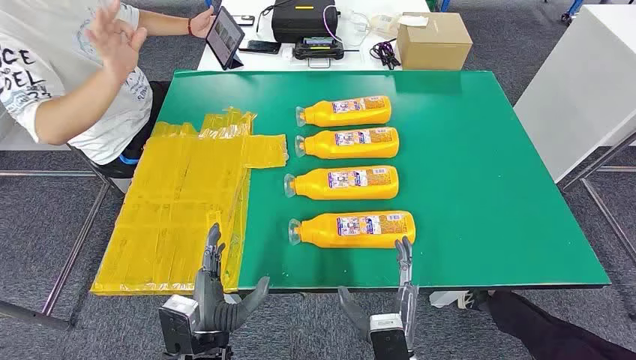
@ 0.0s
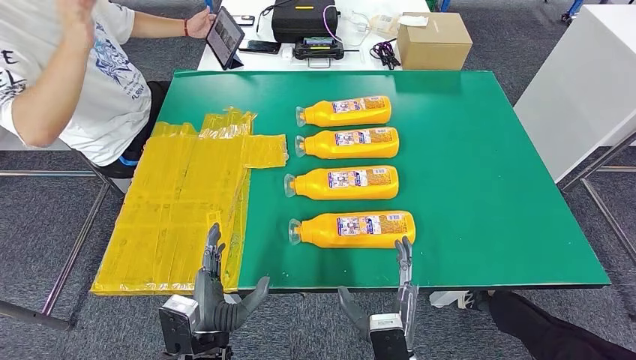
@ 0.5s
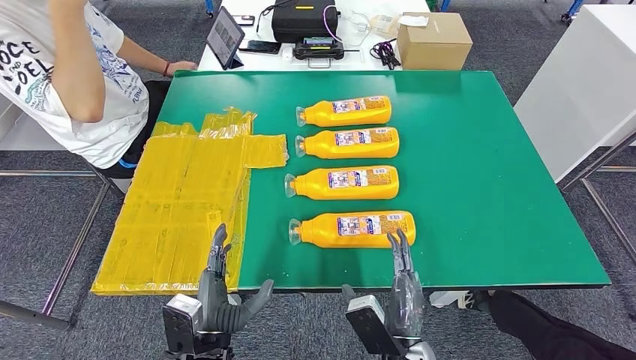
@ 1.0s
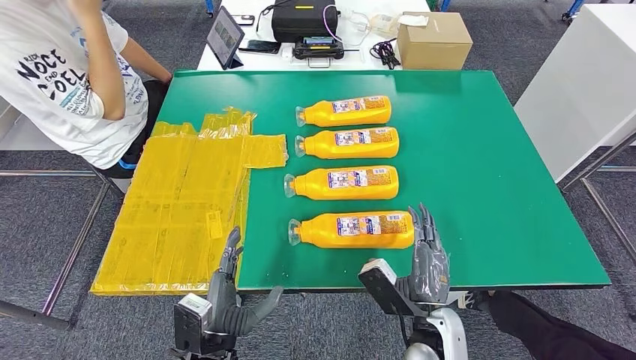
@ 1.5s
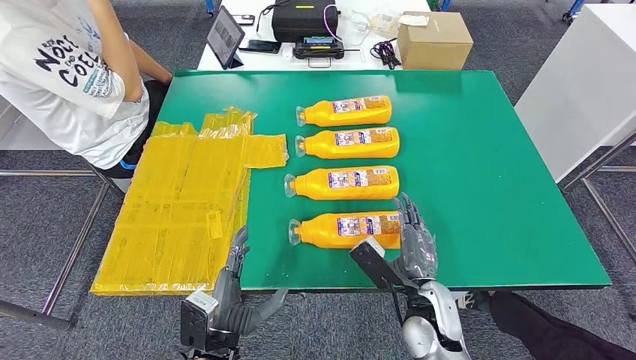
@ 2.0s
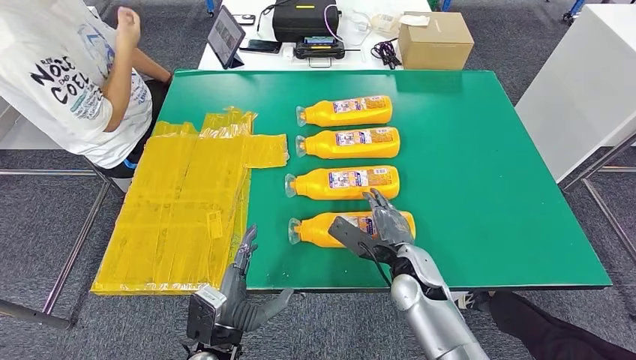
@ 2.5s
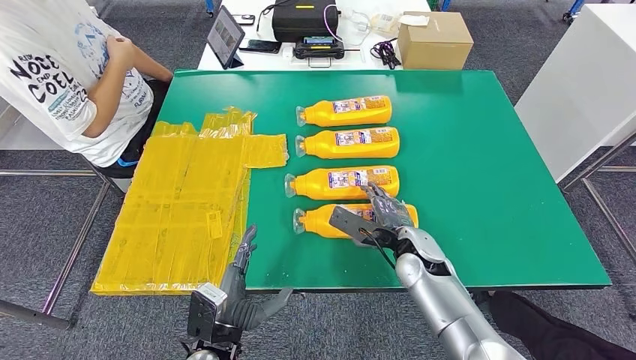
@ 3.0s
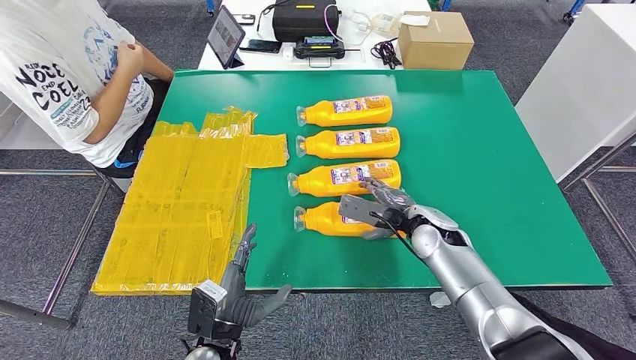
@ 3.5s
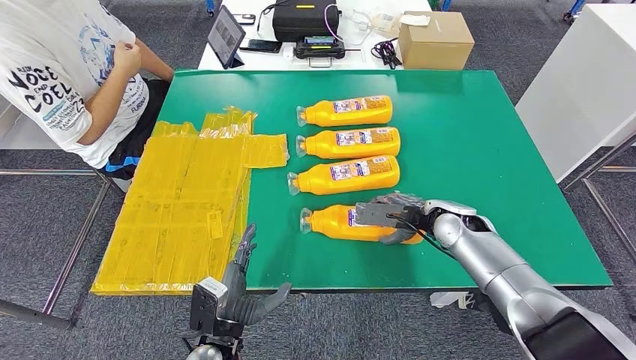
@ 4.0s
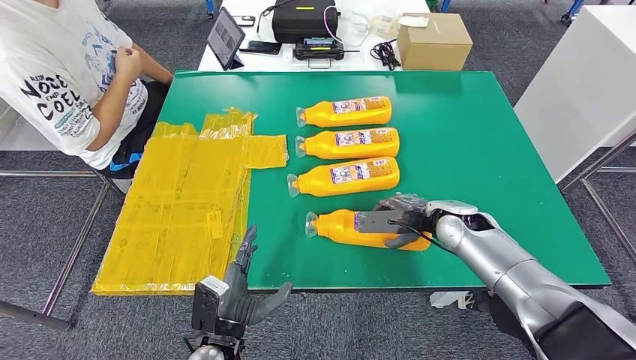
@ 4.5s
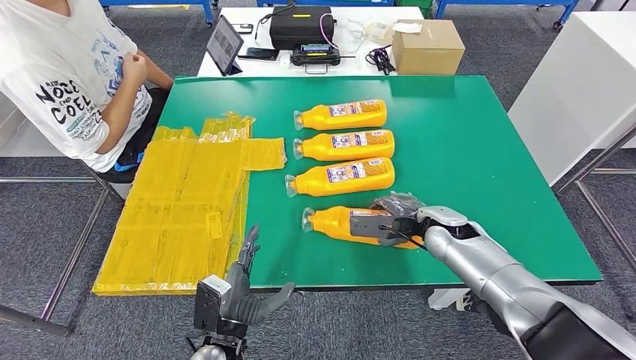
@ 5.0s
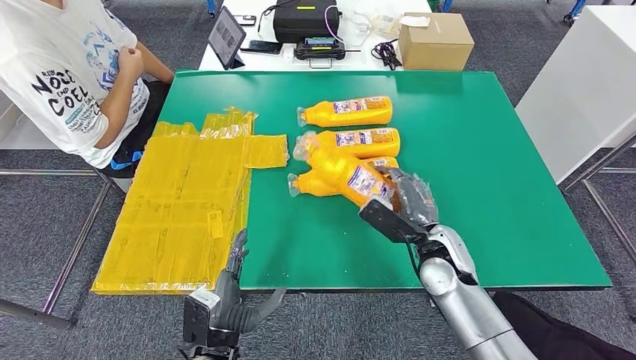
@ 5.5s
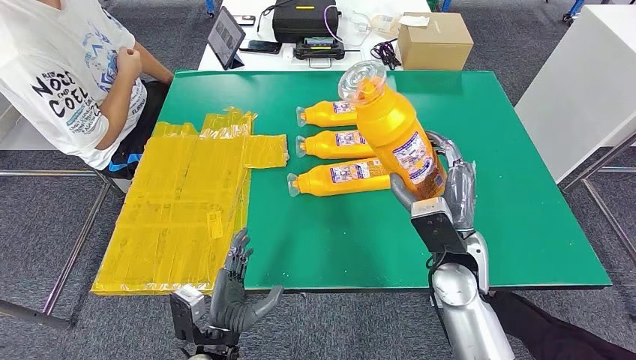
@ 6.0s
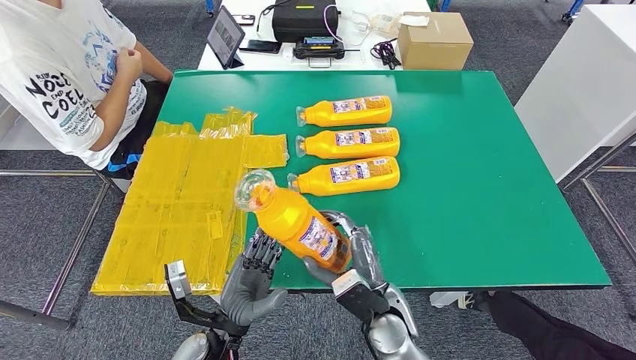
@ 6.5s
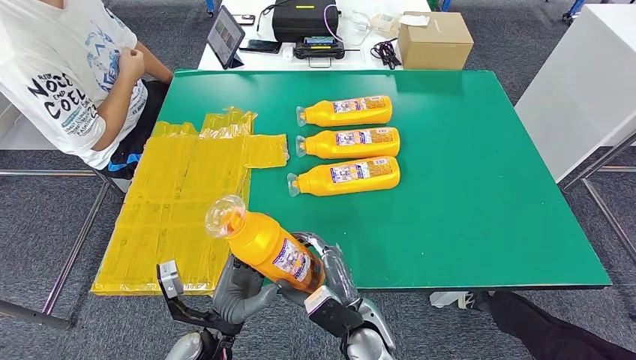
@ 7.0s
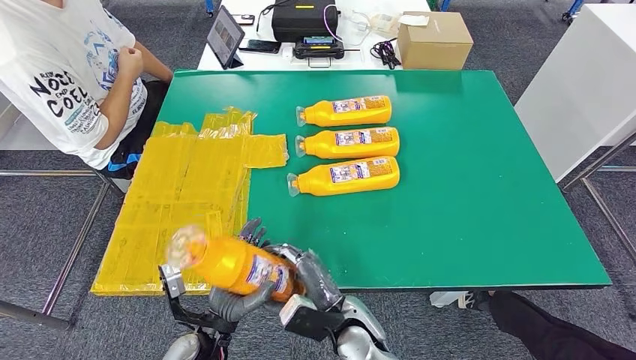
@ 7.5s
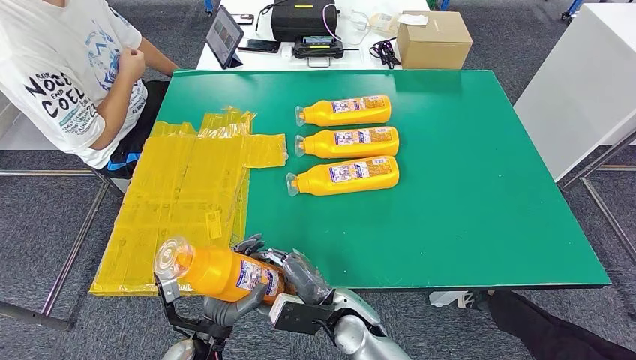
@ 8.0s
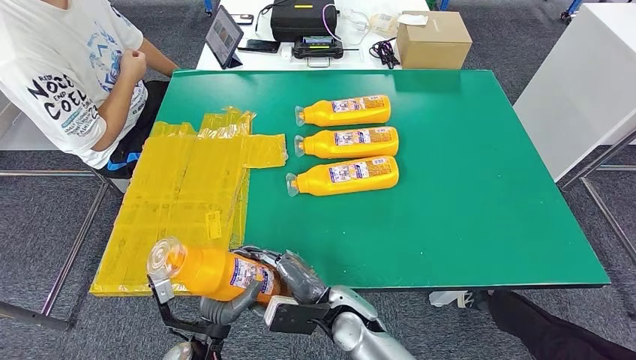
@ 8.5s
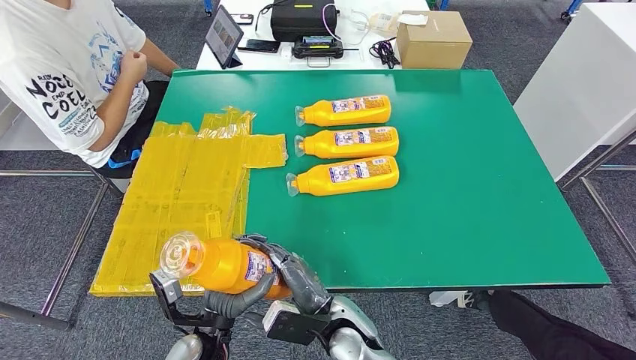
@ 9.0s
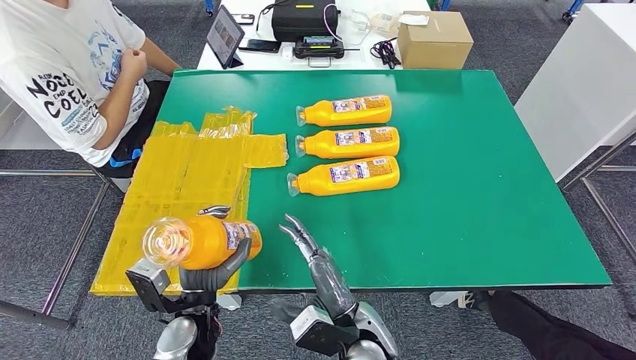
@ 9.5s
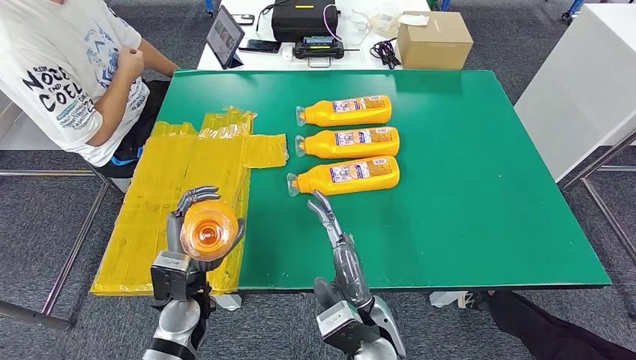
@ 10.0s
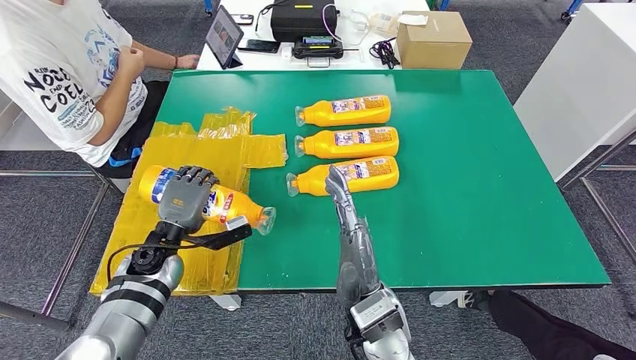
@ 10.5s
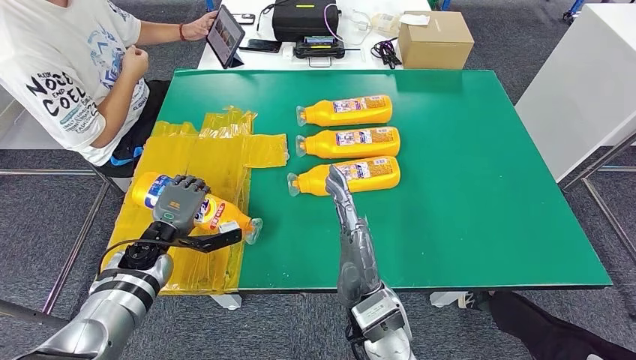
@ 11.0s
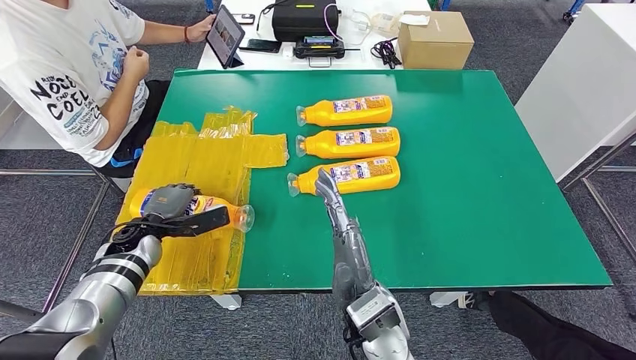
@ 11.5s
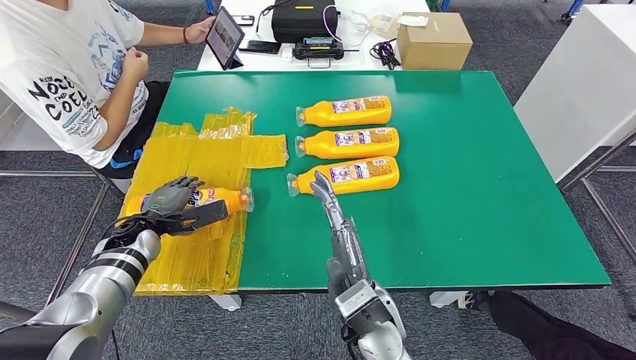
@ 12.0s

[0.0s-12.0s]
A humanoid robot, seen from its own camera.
Step, 0.0s to 4.5s: Take the fast-moving consumer goods bottle from the table.
2.0s to 4.0s: The right hand moves forward and to the right, some 15 cm.
4.0s to 6.0s: The right hand moves backward, about 10 cm.
6.0s to 8.0s: The right hand travels to the left, downward and backward by roughly 20 cm.
8.0s to 10.0s: The left hand goes roughly 10 cm upward and forward. The right hand moves upward, approximately 10 cm.
10.0s to 12.0s: The left hand moves forward and to the left, roughly 20 cm.

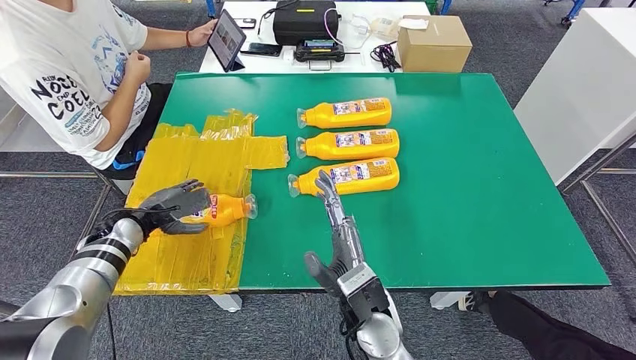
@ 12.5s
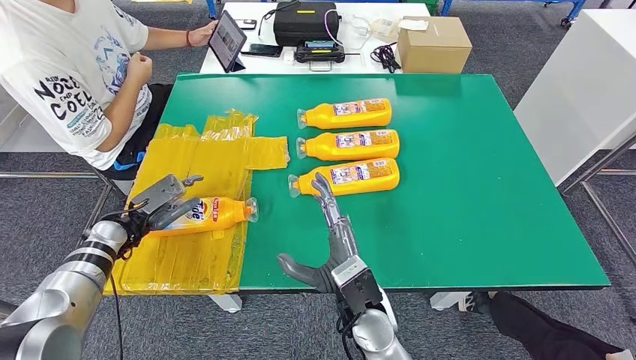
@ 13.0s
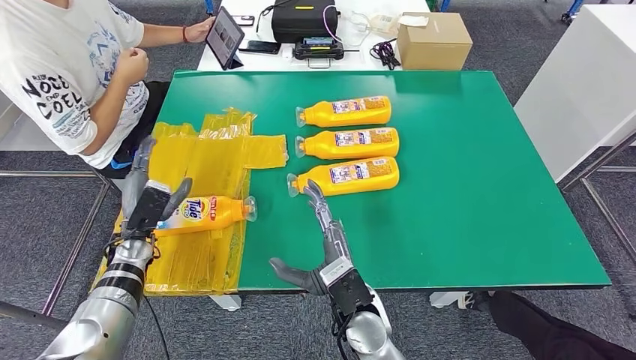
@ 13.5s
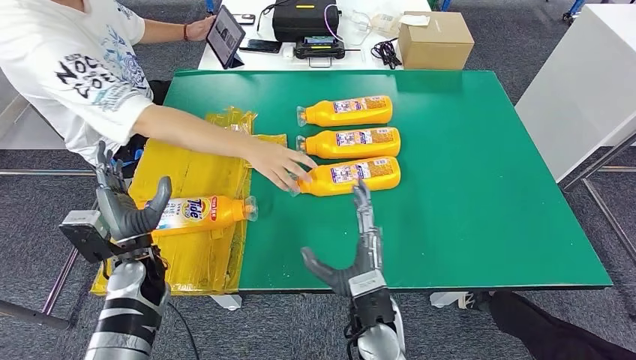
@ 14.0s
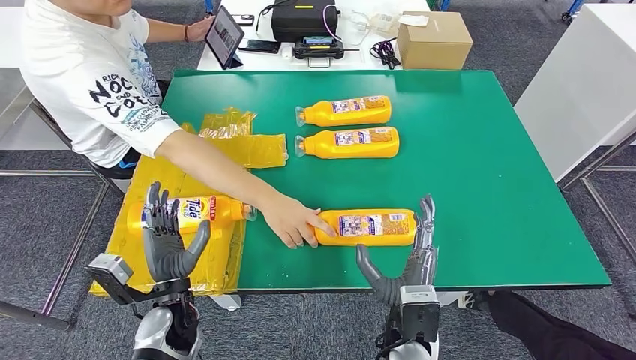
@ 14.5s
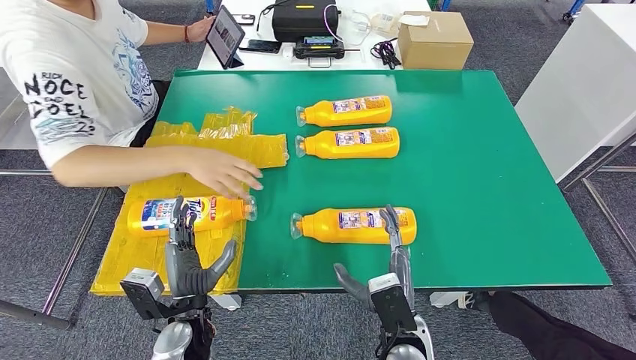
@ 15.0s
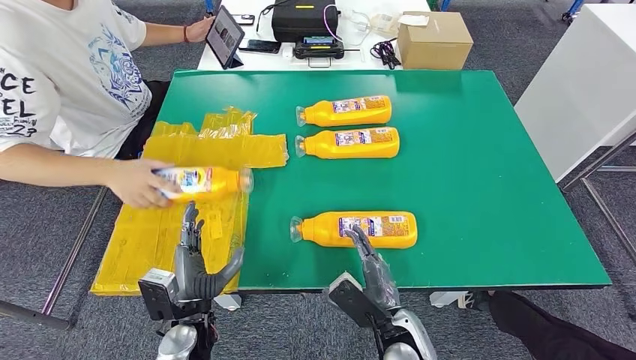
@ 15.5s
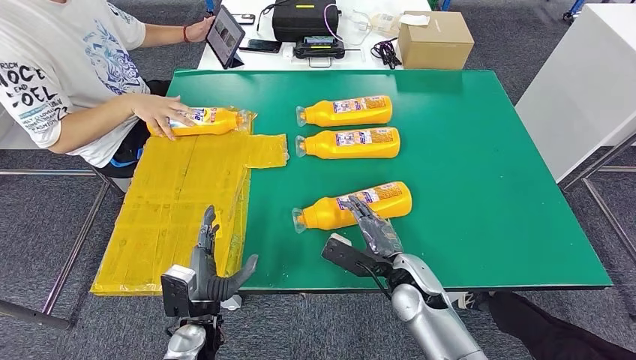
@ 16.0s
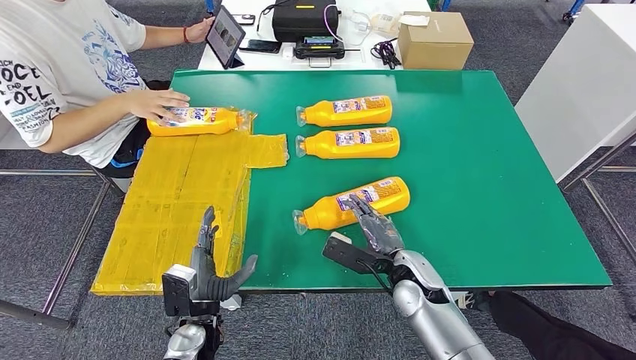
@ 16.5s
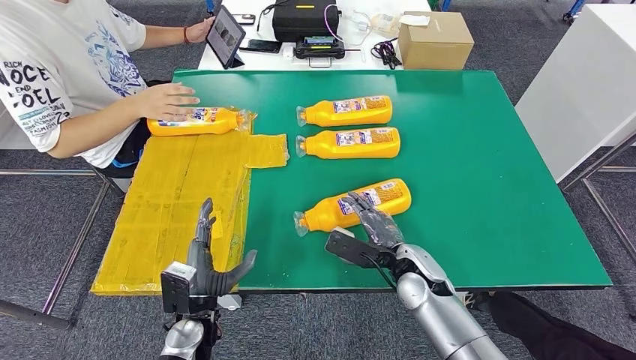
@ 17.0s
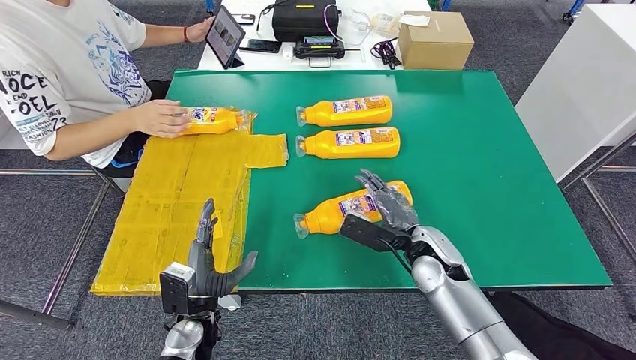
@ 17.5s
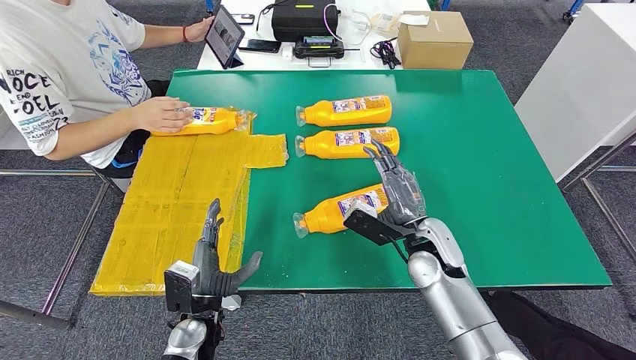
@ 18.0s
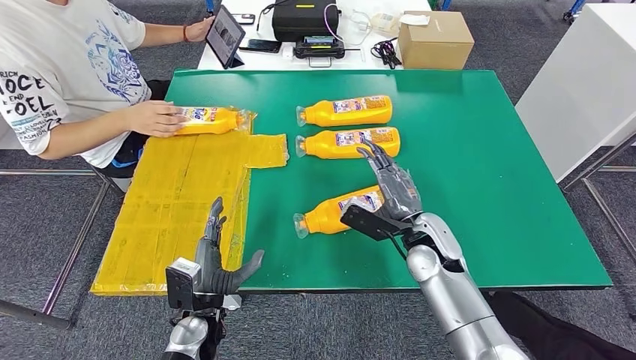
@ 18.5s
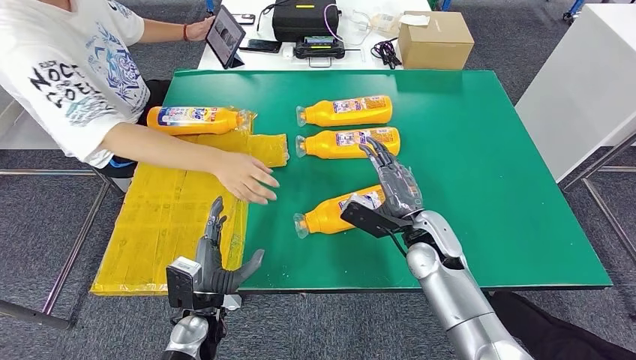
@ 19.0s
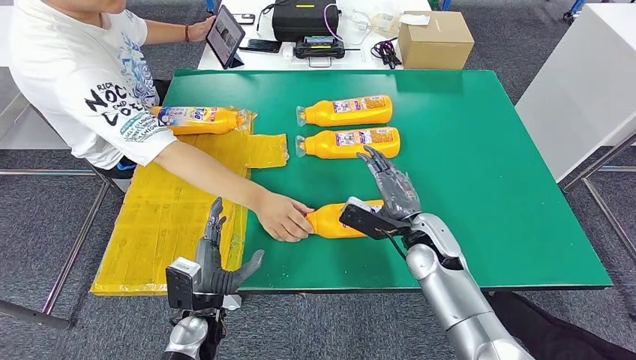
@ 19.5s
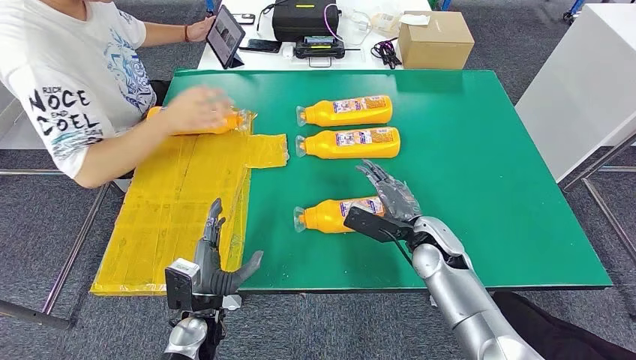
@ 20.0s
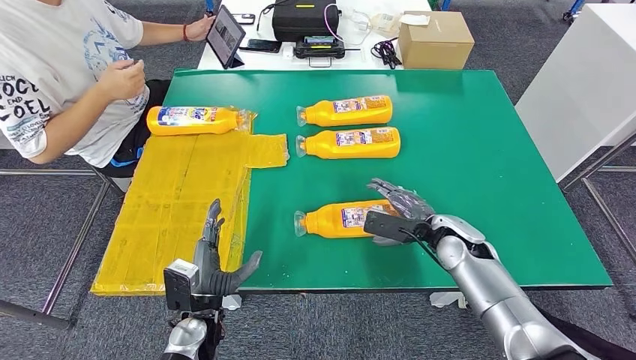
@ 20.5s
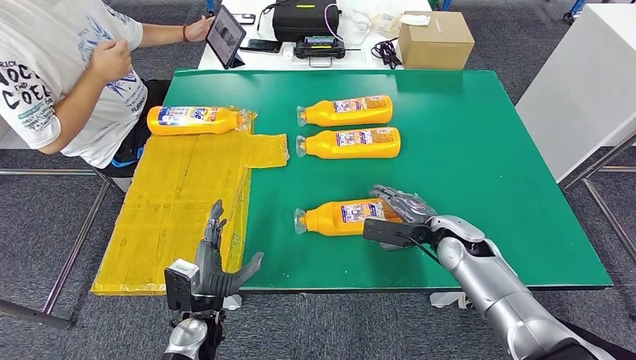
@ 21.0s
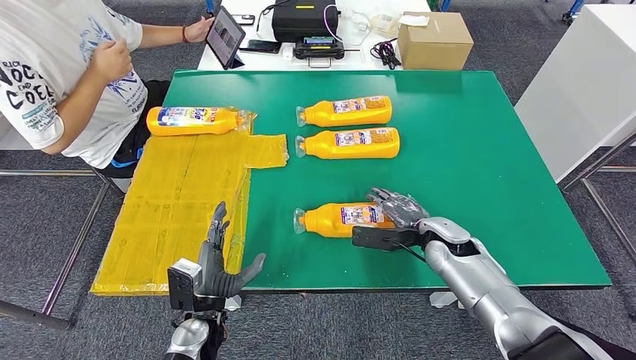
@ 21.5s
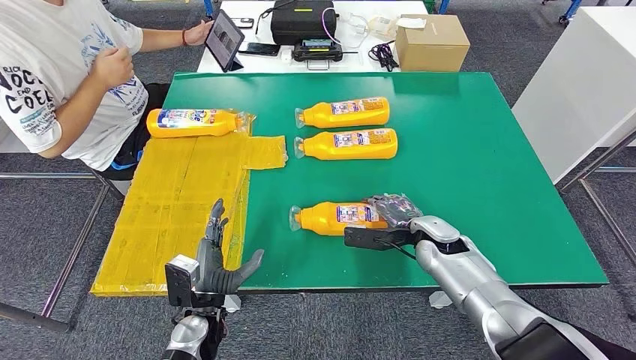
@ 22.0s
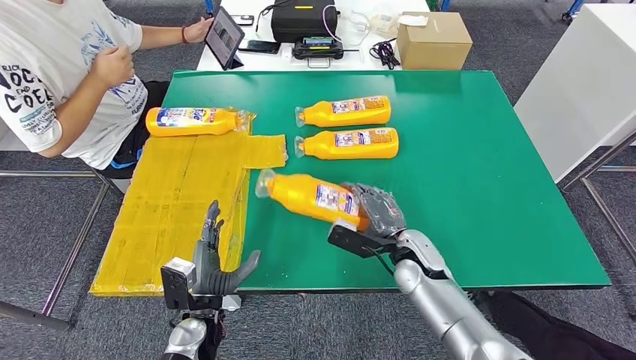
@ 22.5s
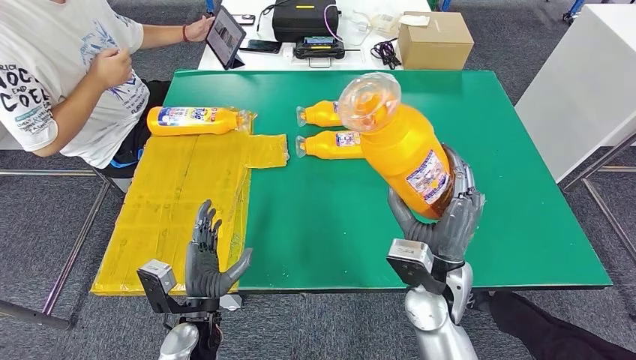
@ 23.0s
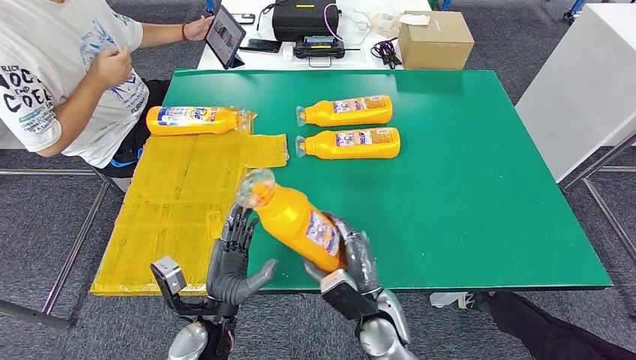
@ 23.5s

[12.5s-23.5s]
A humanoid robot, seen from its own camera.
16.0s to 18.0s: The right hand heads upward, covering some 5 cm.
18.0s to 20.0s: The hands make only small movements.
20.0s to 21.5s: The right hand changes place by approximately 5 cm.
21.5s to 23.5s: The left hand changes place by approximately 5 cm; the right hand heads to the left and backward, covering approximately 20 cm.
